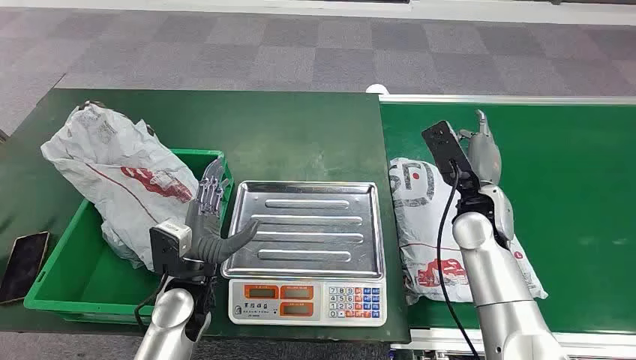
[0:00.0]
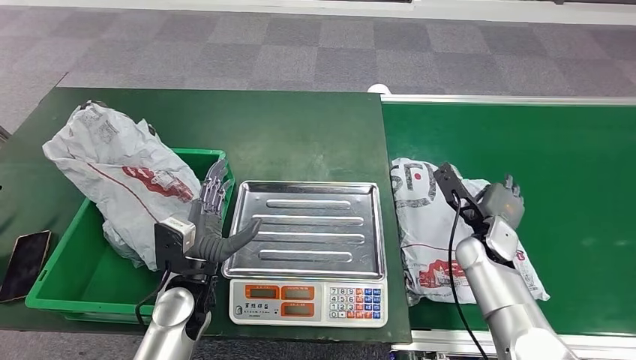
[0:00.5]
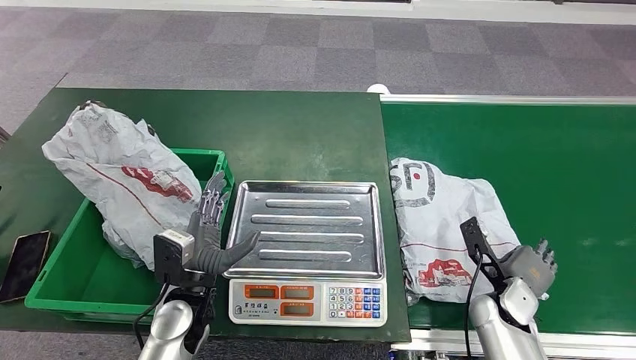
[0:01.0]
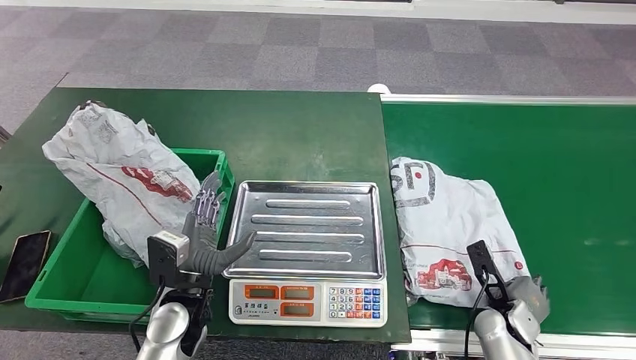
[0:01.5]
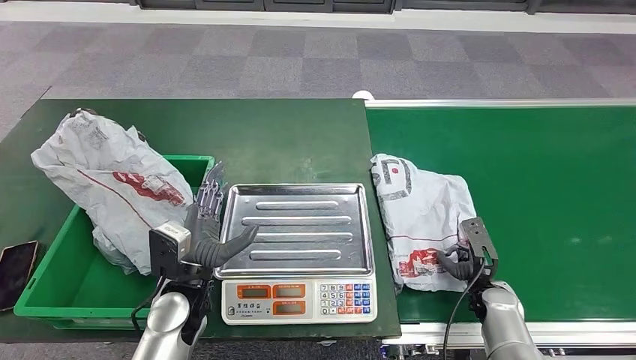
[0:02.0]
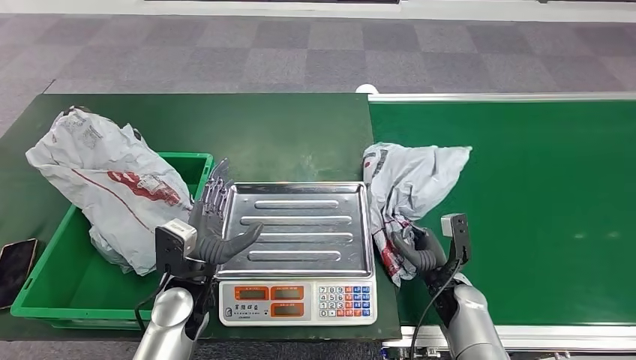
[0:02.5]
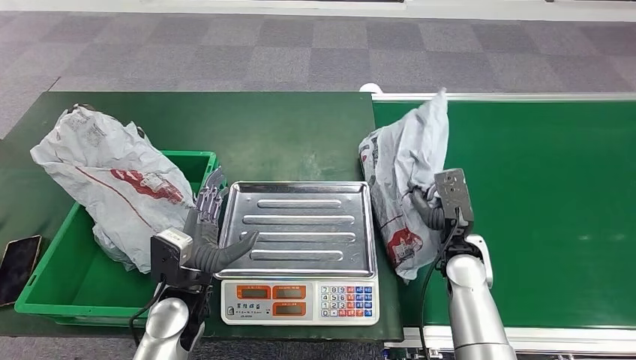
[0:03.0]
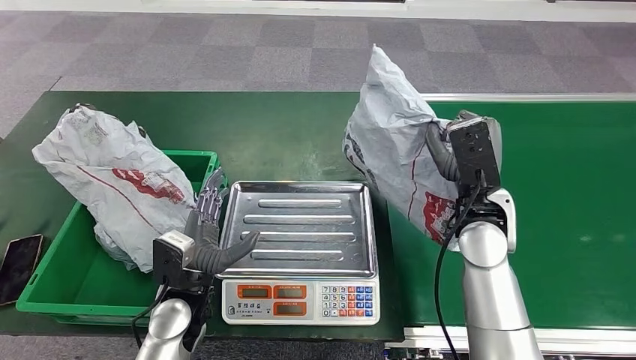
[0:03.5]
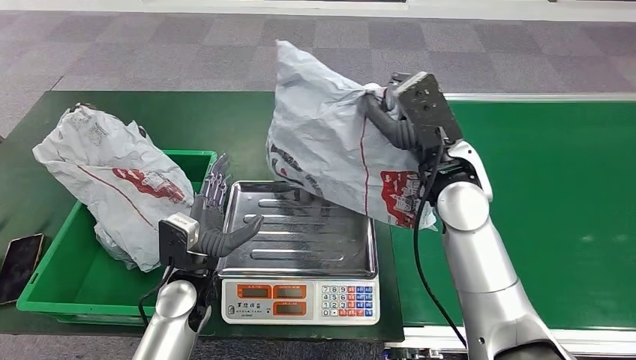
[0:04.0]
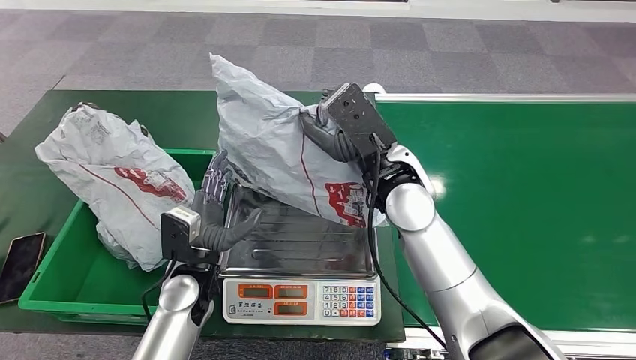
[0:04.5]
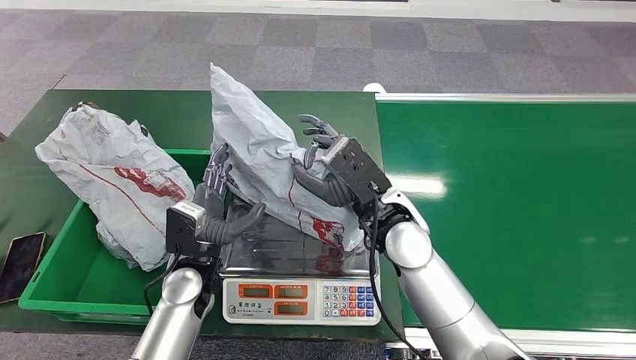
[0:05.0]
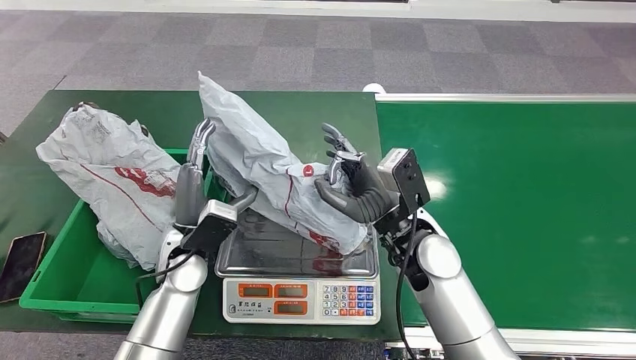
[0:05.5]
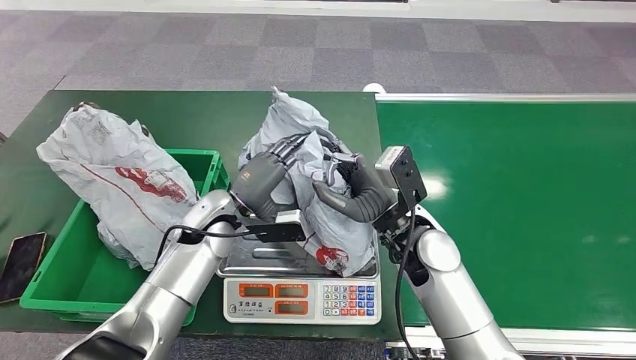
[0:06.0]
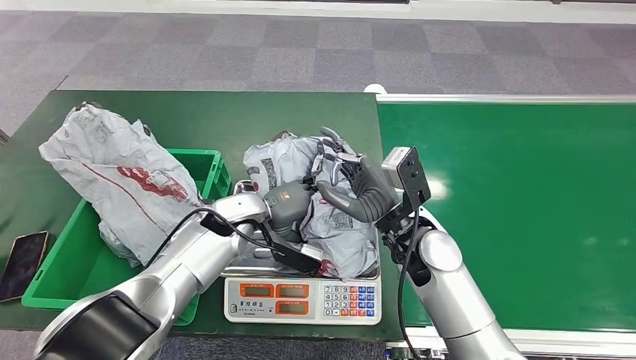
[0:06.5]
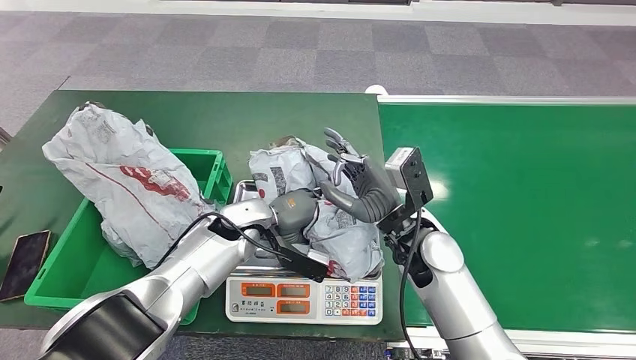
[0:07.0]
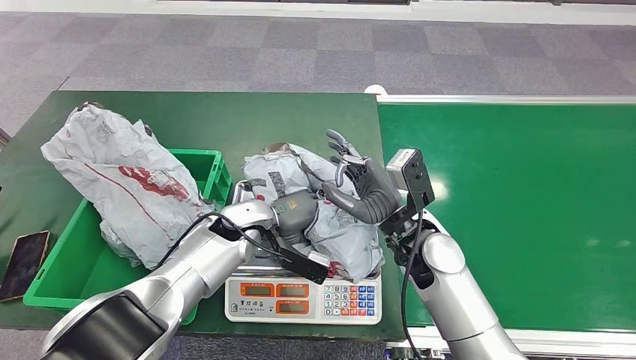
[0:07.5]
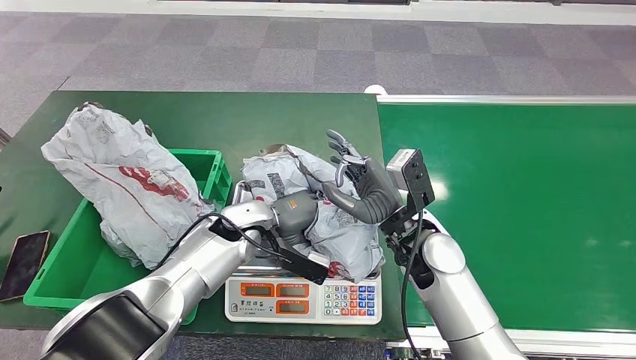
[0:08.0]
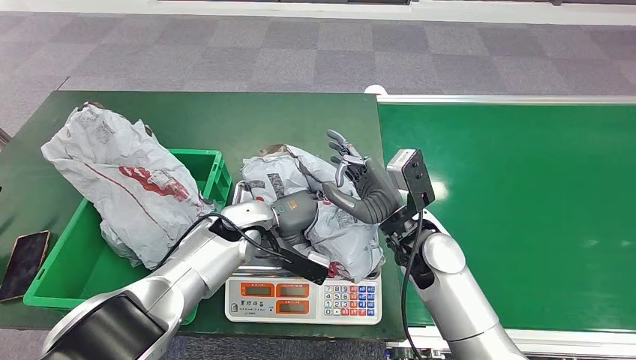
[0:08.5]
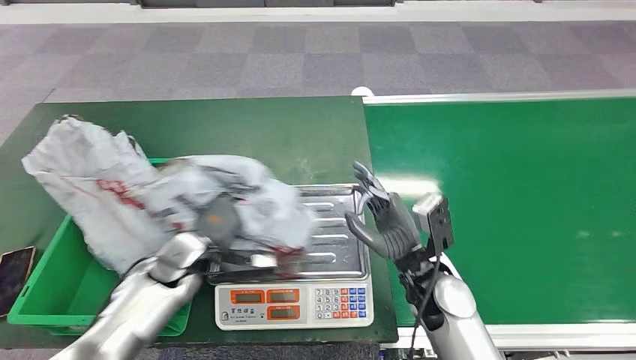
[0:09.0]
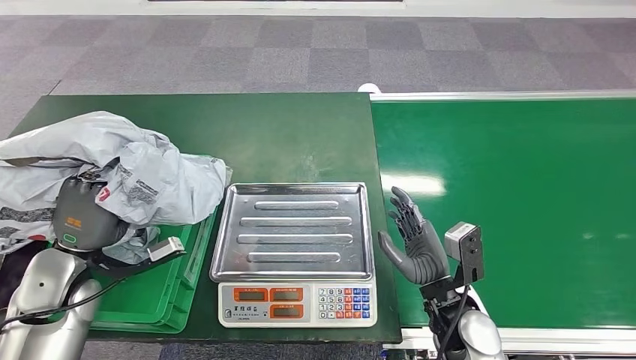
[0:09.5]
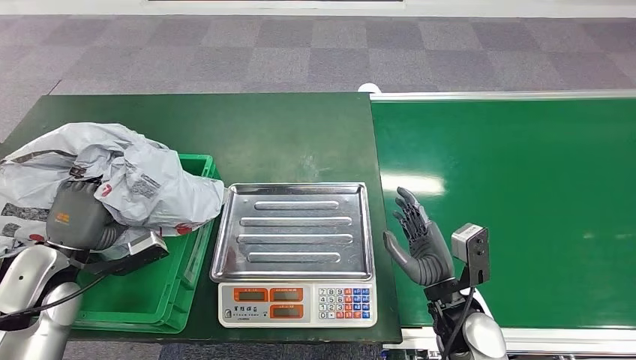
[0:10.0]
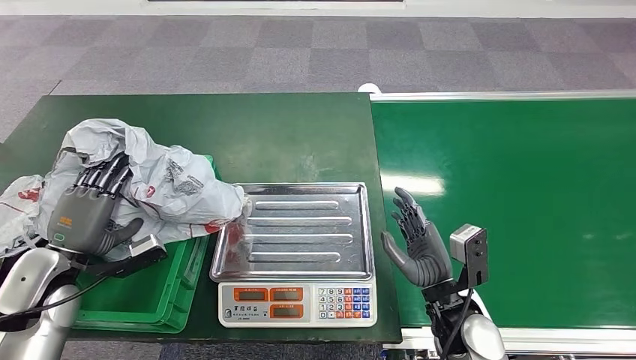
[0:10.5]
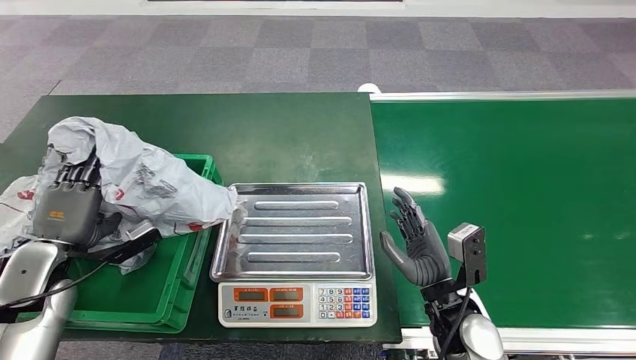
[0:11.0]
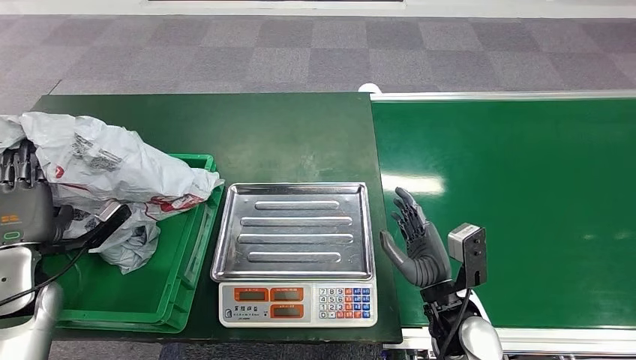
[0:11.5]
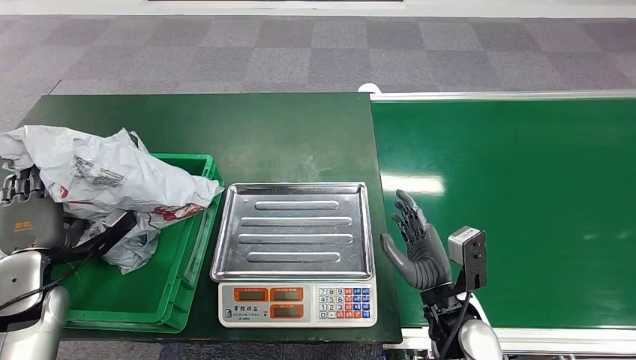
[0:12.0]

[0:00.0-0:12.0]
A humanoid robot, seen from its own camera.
Step, 0:00.0 to 0:03.5: Pick up the package from the conveyor belt.
Step, 0:04.0 to 0:05.0: Place the package onto the inbound machine.
Step, 0:05.5 to 0:09.0: Pick up the package from the inbound machine.
Step, 0:09.5 to 0:12.0: Place the package into the parcel locker.
